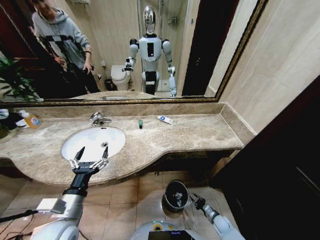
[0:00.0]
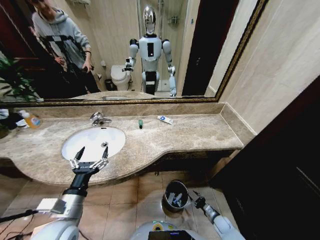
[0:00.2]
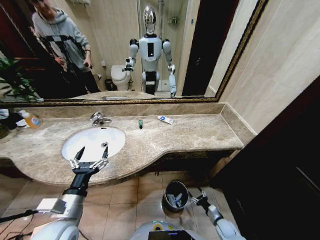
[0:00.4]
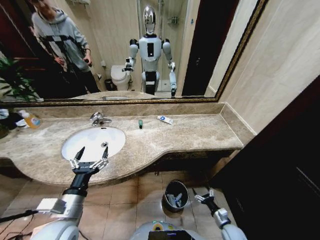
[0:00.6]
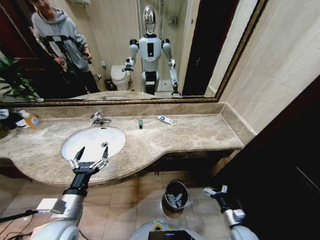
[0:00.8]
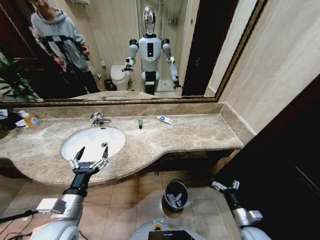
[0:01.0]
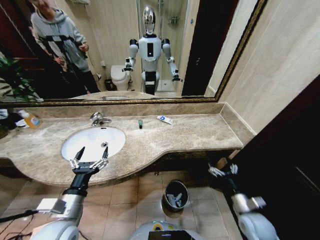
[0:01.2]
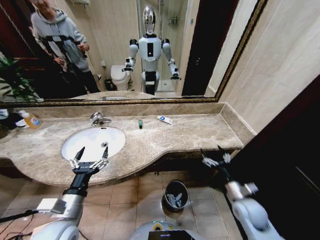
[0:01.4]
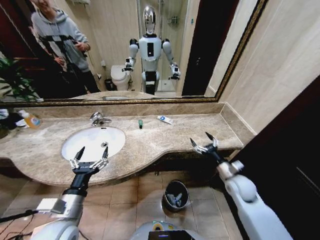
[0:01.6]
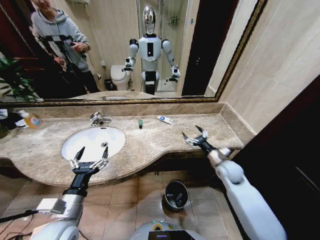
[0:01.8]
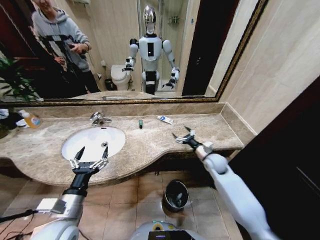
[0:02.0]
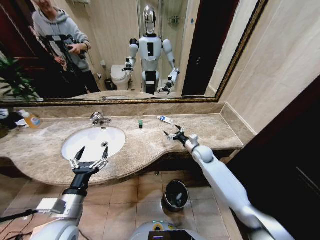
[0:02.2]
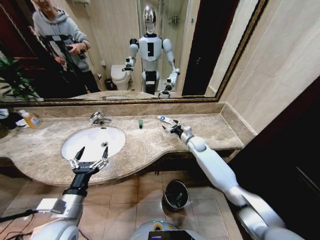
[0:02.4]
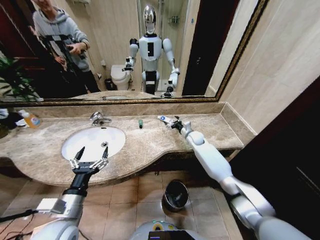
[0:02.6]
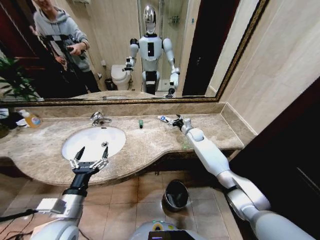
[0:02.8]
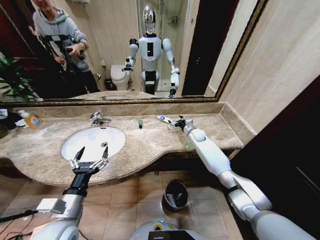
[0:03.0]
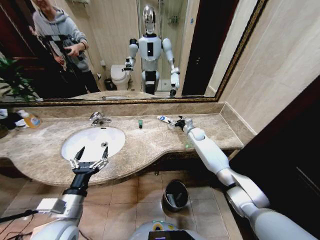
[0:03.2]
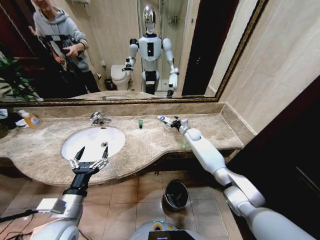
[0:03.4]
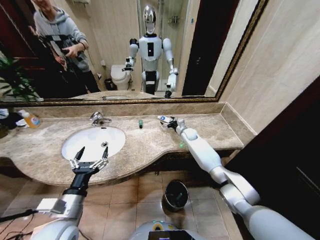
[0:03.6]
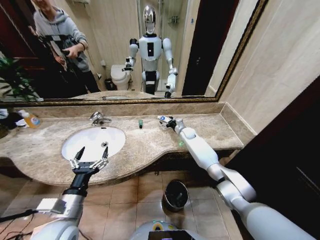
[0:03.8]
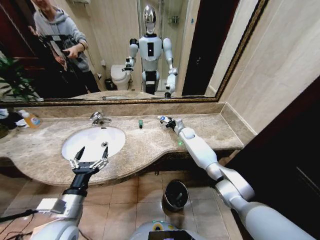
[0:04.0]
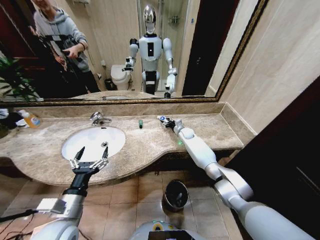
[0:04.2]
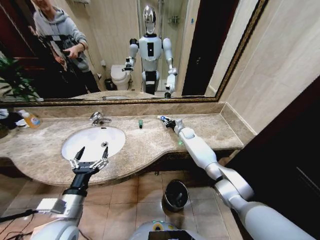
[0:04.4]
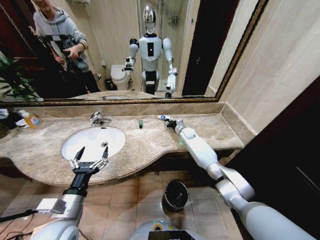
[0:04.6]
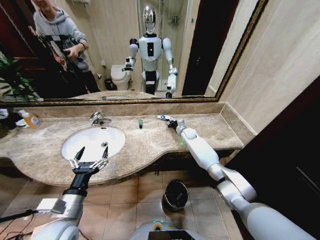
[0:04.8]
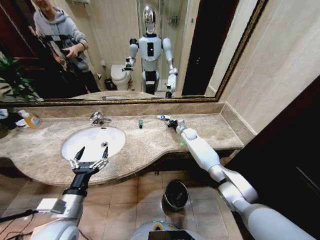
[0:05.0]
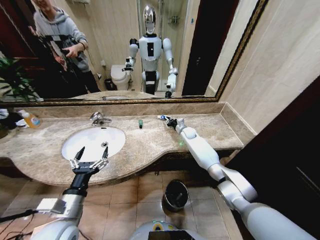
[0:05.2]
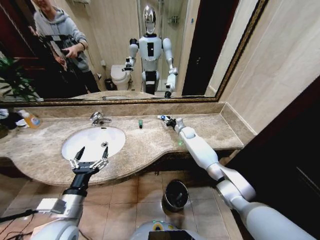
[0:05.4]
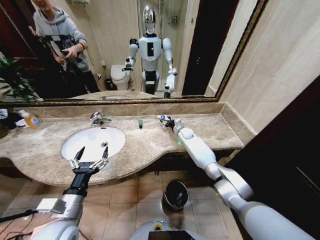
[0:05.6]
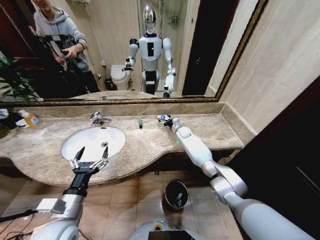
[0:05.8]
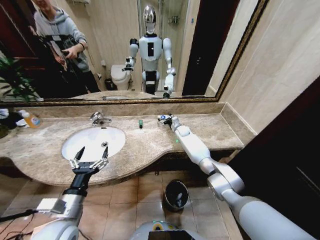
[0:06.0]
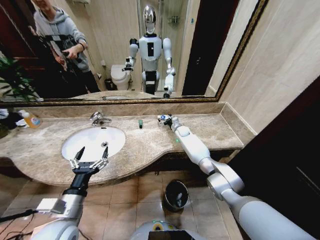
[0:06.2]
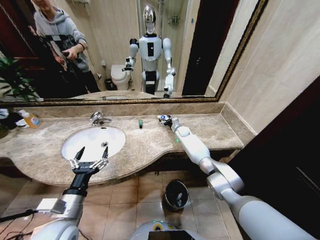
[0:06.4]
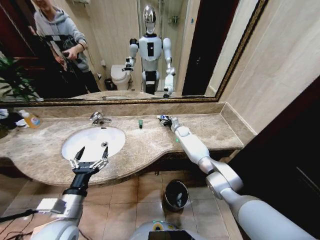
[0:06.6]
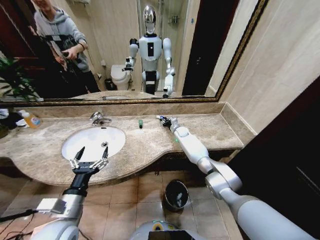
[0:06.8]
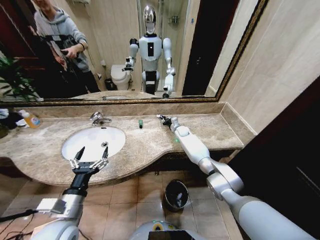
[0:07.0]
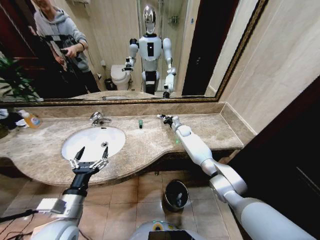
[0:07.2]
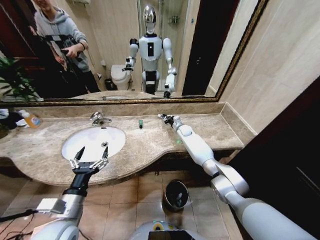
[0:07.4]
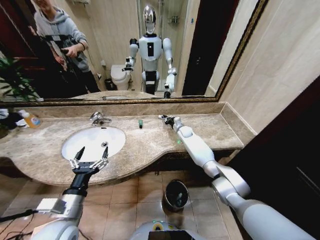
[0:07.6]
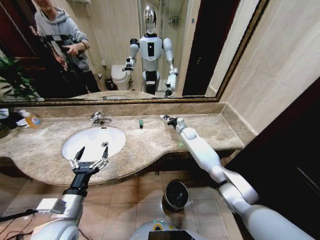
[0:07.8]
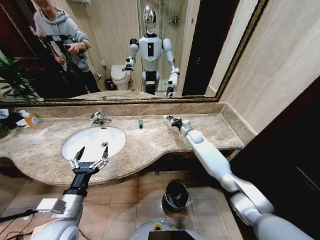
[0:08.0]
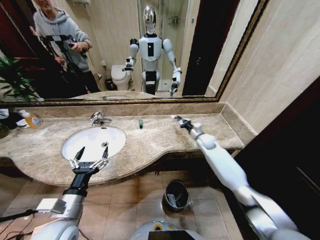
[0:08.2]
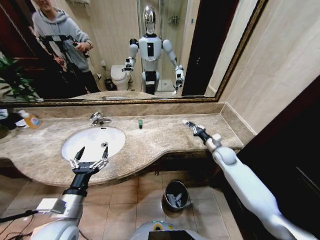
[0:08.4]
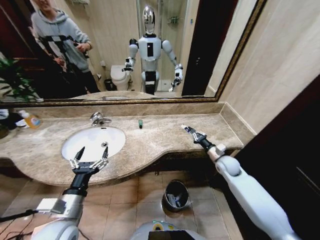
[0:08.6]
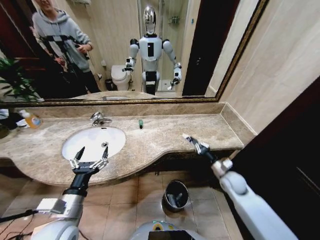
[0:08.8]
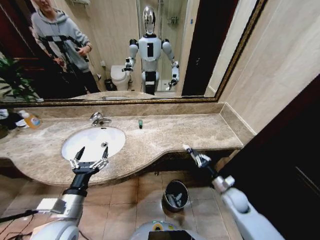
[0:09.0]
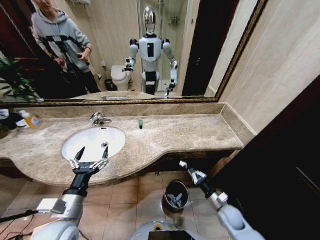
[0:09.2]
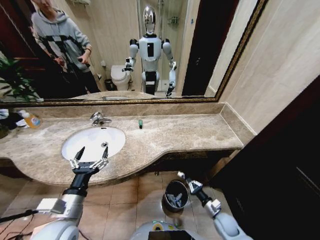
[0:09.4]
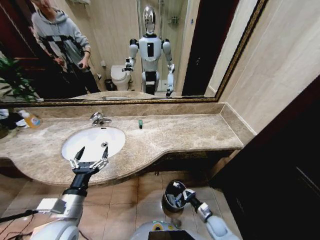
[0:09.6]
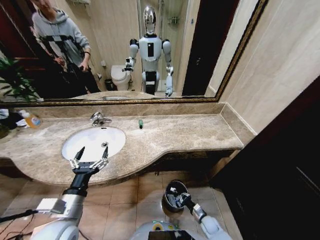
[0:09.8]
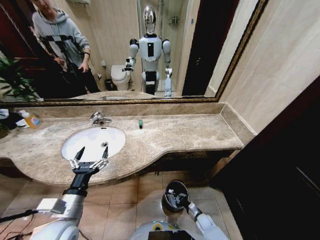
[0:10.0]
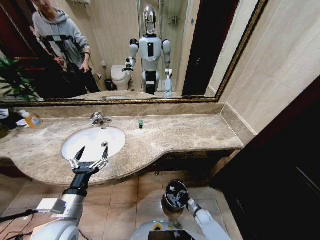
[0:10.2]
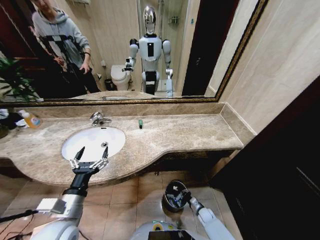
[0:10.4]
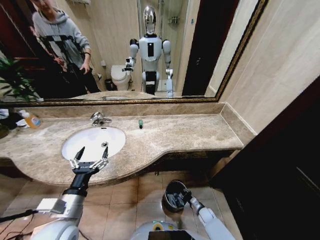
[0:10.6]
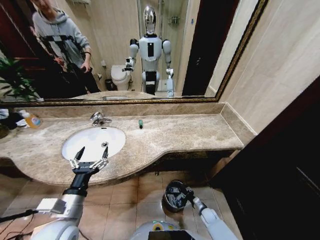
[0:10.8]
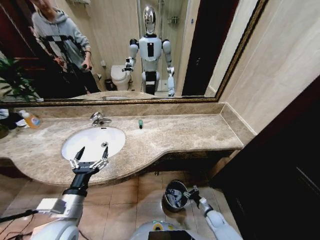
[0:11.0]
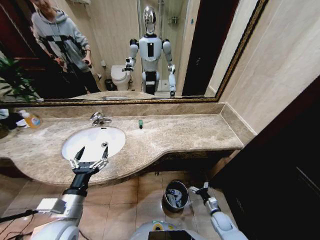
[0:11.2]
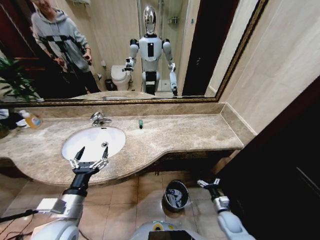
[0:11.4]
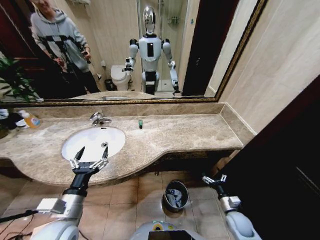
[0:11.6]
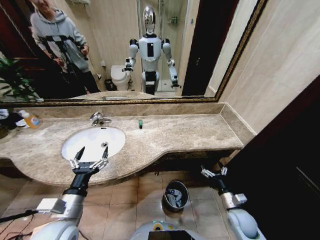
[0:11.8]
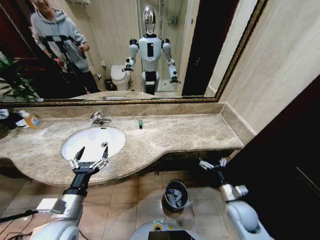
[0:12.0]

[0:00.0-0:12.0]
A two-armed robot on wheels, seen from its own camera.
Task of the whole recording: Pick up the trash from the sink and place it in the trash bin.
0:00.0 to 0:01.6: The right gripper shifts some 35 cm upward, and opens its fingers.
0:01.6 to 0:03.0: The right gripper travels forward by roughly 30 cm.
0:03.0 to 0:04.4: The right gripper moves to the left, some 5 cm, and closes its fingers.
0:04.4 to 0:06.0: The right gripper opens its fingers.
0:06.0 to 0:07.6: The right gripper closes its fingers.
0:07.6 to 0:09.0: The right gripper shifts some 35 cm backward.
0:09.0 to 0:10.4: The right gripper heads downward, covering roughly 25 cm.
0:10.4 to 0:12.0: The right gripper shifts approximately 30 cm upward, and opens its fingers.

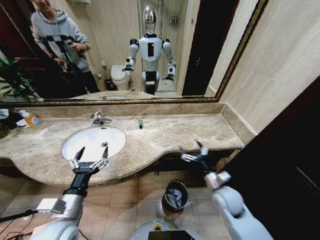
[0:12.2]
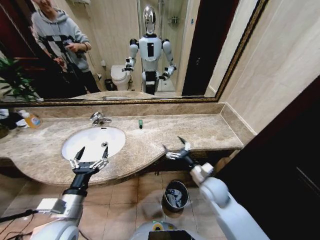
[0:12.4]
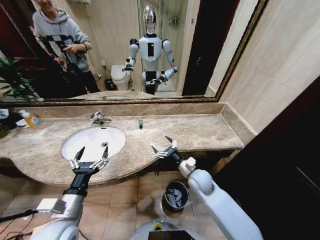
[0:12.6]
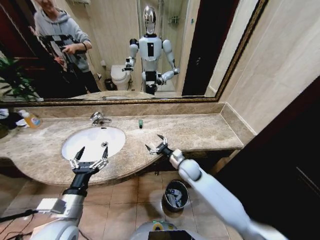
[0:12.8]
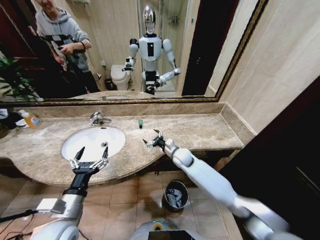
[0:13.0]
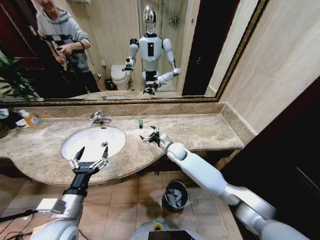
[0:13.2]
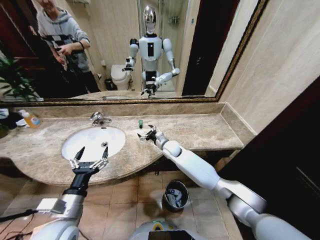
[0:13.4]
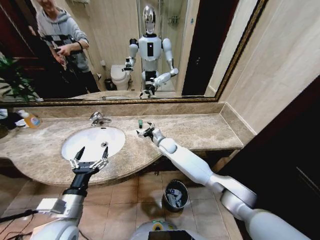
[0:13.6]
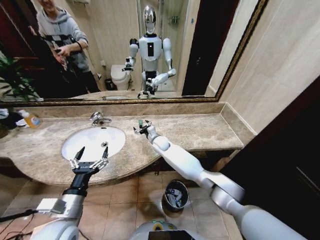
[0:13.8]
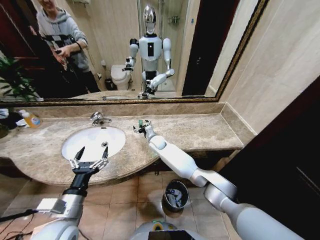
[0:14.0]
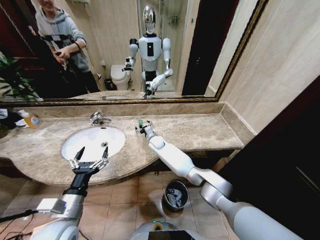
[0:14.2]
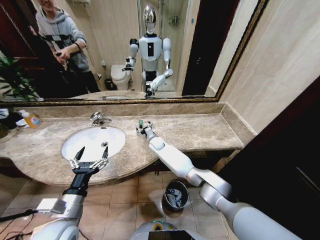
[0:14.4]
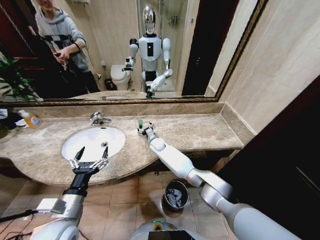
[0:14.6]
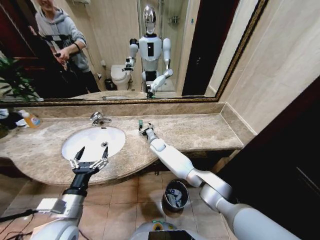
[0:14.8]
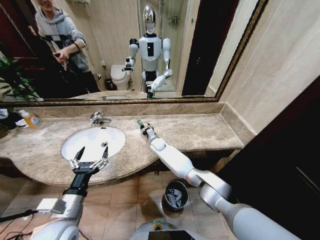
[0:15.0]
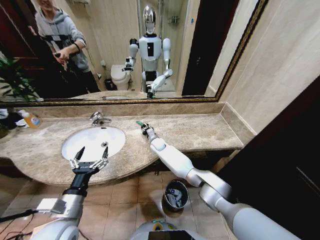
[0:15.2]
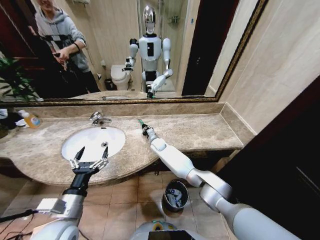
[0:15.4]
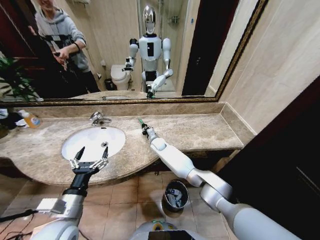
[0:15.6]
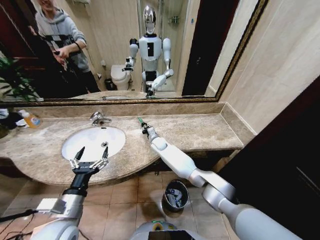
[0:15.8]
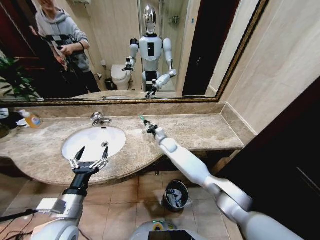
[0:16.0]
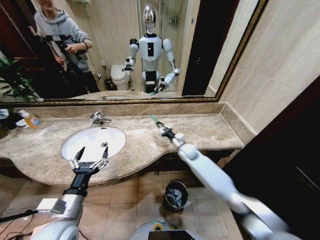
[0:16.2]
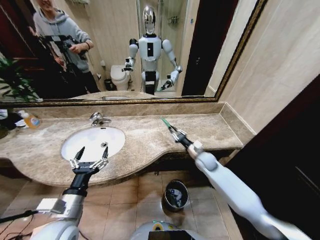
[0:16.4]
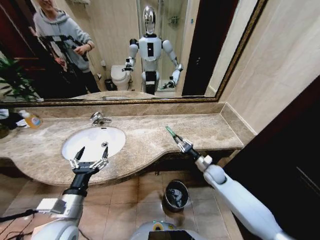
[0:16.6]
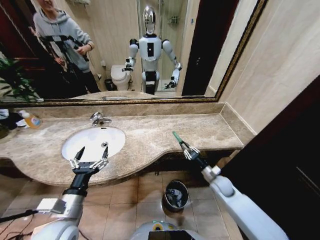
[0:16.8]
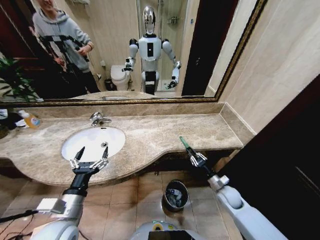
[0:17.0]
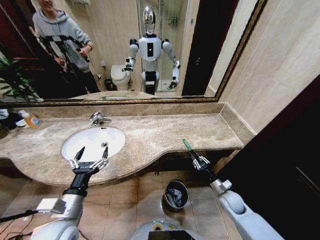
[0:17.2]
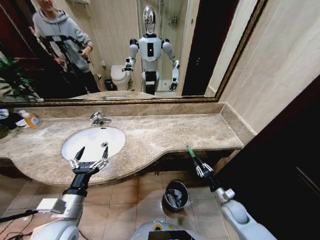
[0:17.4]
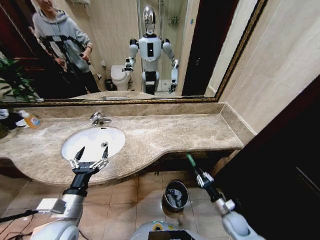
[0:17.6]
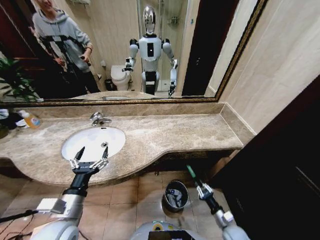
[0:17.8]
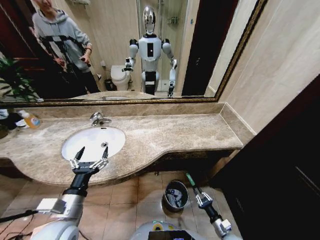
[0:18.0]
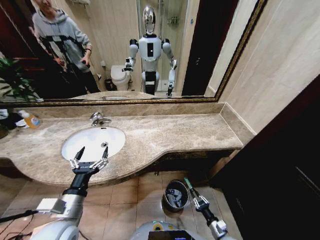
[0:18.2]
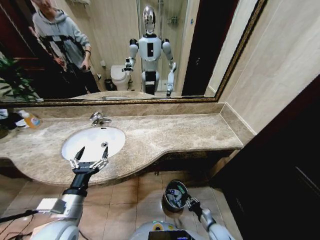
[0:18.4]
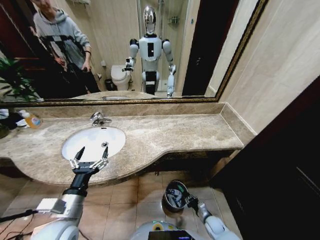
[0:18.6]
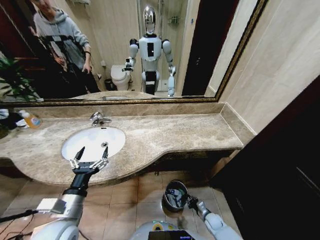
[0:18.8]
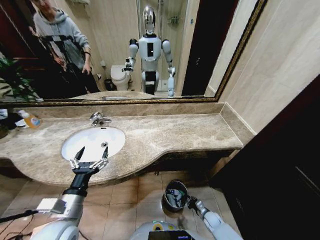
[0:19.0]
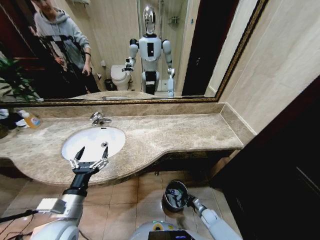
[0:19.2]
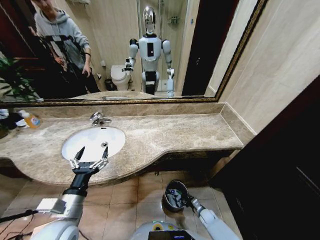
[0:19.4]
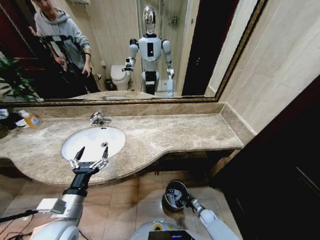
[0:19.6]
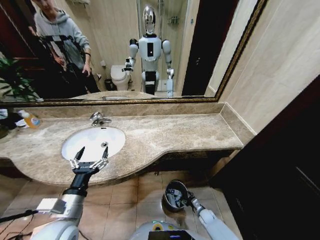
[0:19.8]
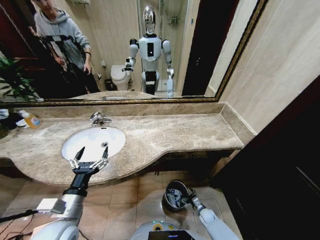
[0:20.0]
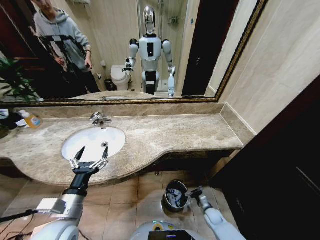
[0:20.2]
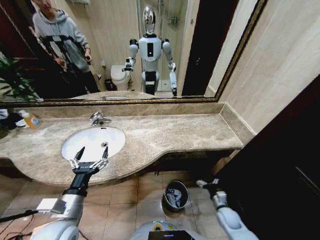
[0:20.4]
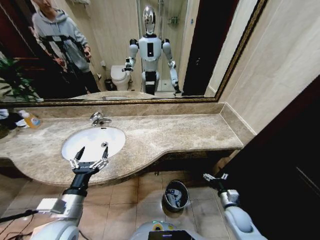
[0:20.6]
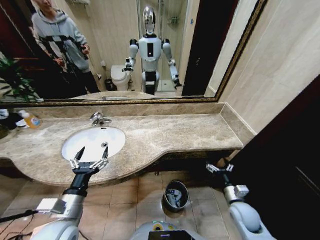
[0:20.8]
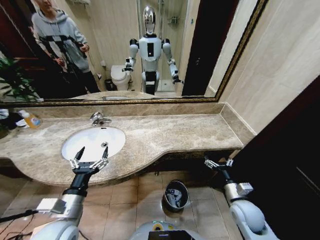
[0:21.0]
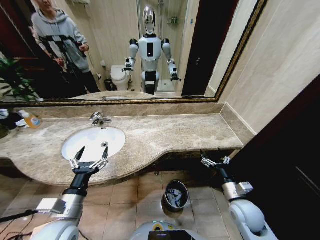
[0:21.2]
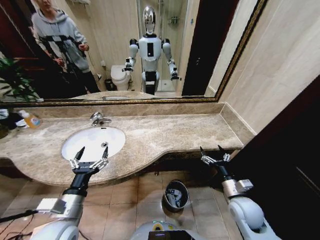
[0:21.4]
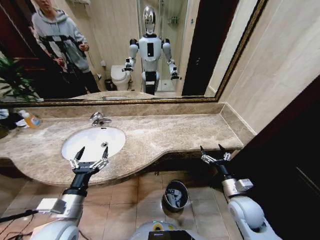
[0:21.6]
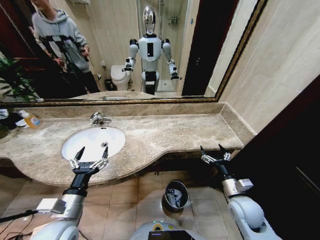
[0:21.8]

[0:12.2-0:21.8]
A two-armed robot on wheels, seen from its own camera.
Task of the whole recording: Pick up the trash from the sink and place it in the trash bin.
0:12.2 to 0:13.8: The right gripper moves forward and to the left, approximately 35 cm.
0:13.8 to 0:15.4: The right gripper heads downward, covering about 5 cm, and closes its fingers.
0:15.4 to 0:17.0: The right gripper goes some 40 cm to the right and backward.
0:17.0 to 0:18.6: The right gripper moves downward and backward, some 20 cm.
0:18.6 to 0:20.2: The right gripper opens.
0:20.2 to 0:21.8: The right gripper is displaced upward by approximately 30 cm.
